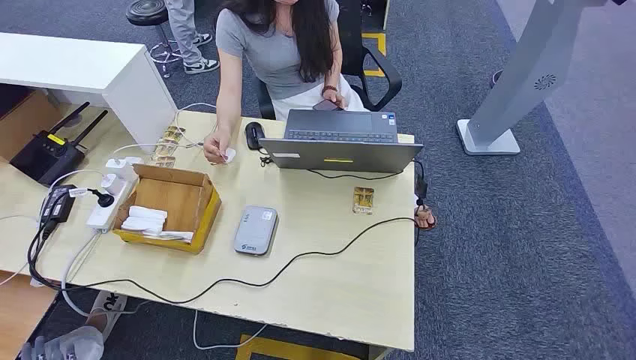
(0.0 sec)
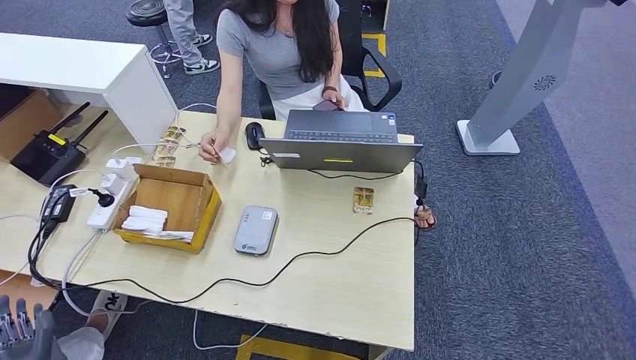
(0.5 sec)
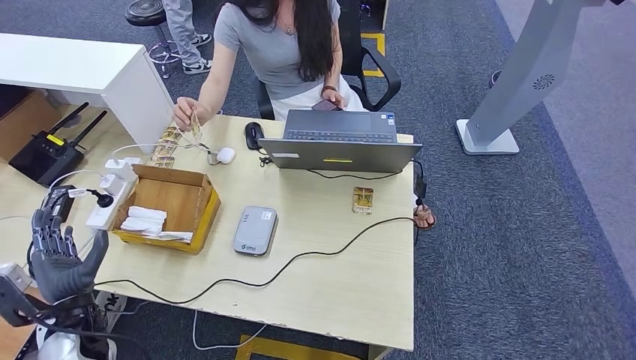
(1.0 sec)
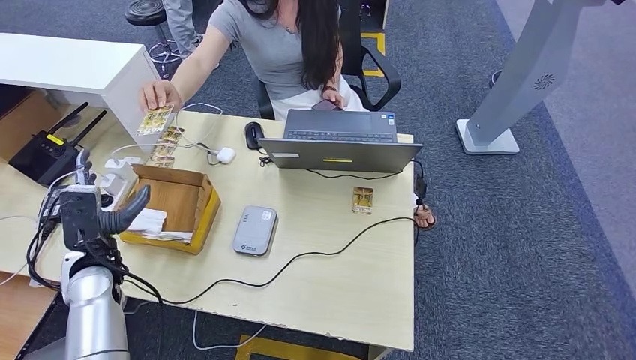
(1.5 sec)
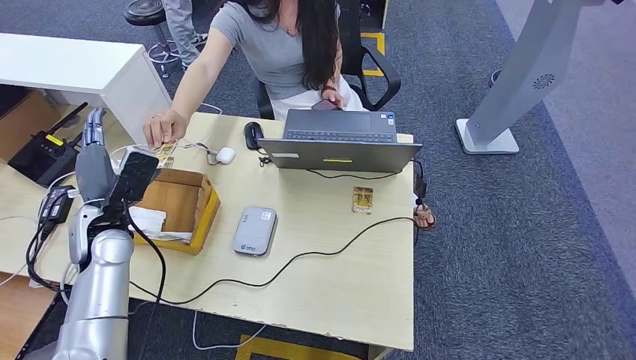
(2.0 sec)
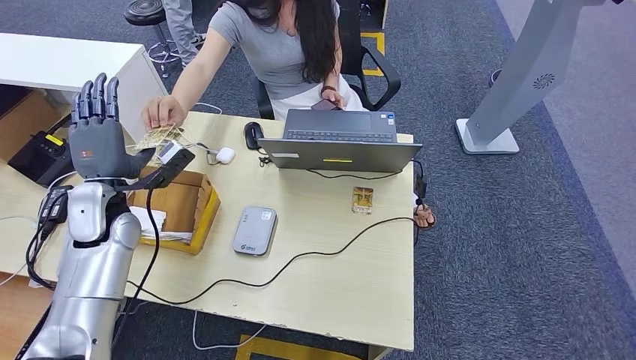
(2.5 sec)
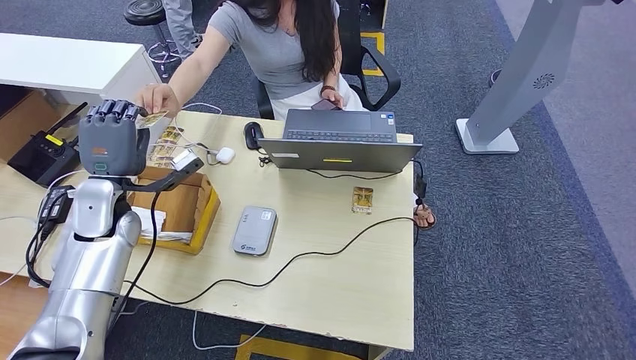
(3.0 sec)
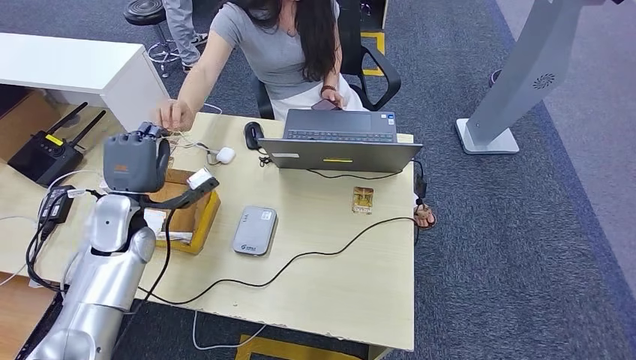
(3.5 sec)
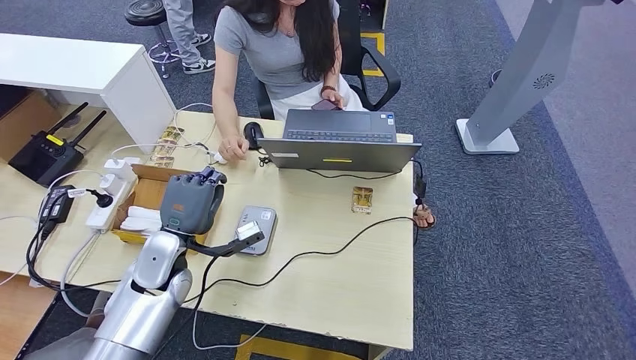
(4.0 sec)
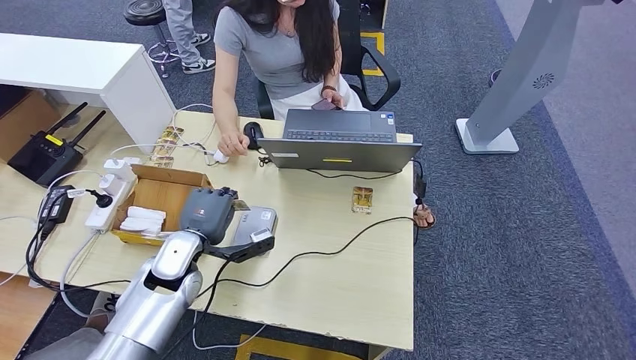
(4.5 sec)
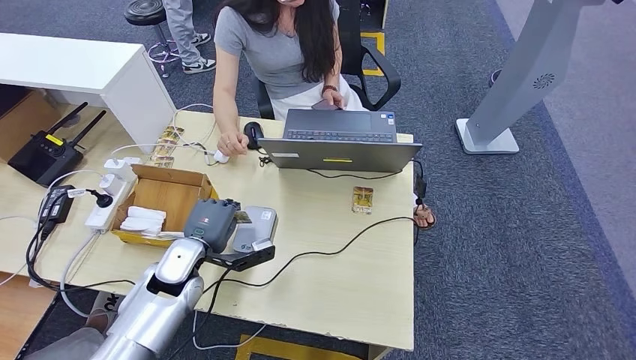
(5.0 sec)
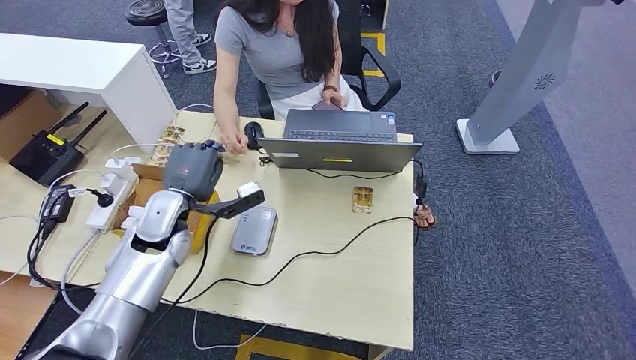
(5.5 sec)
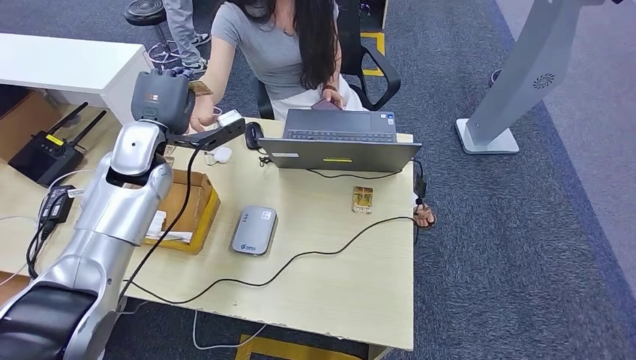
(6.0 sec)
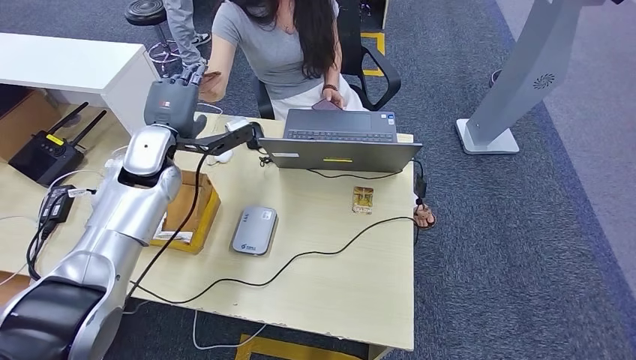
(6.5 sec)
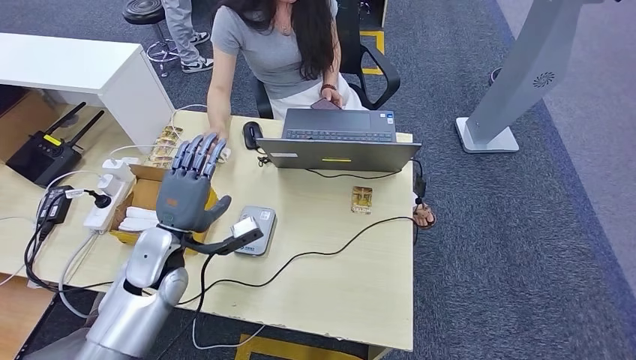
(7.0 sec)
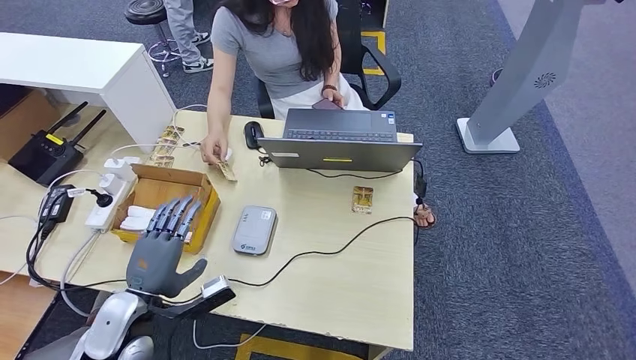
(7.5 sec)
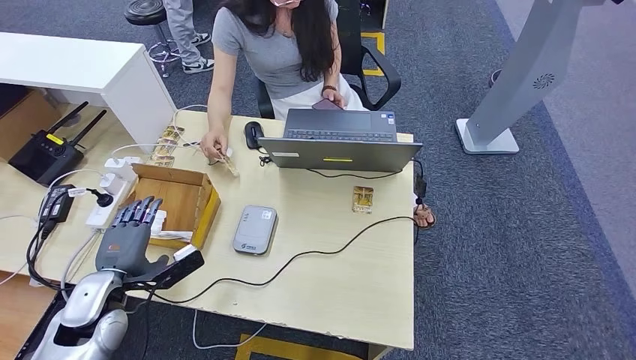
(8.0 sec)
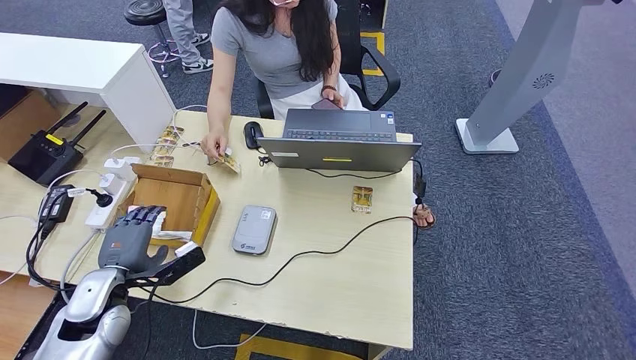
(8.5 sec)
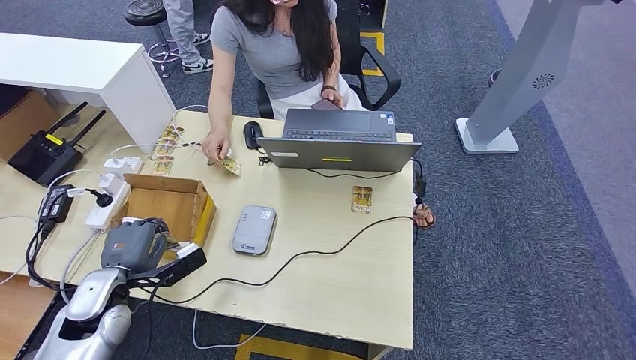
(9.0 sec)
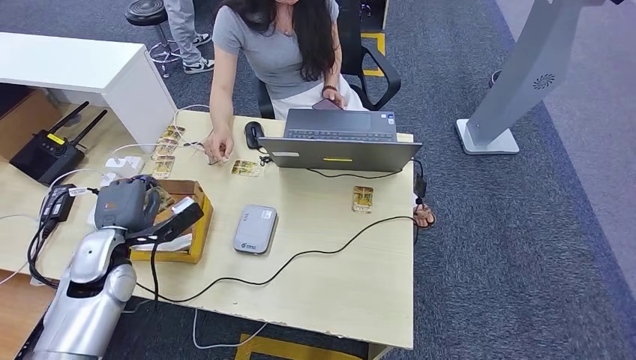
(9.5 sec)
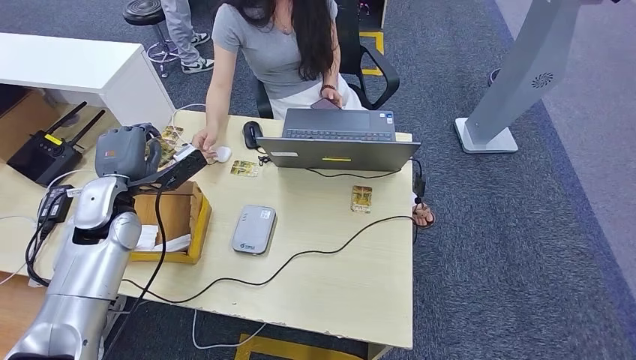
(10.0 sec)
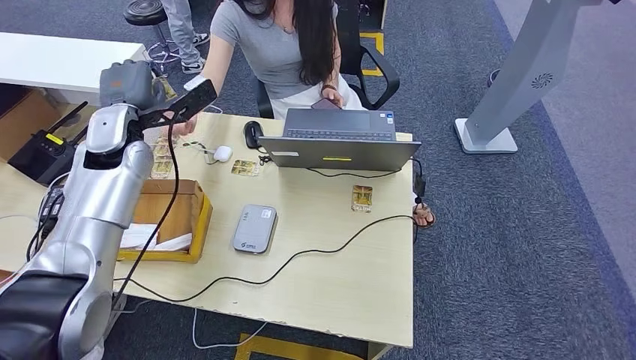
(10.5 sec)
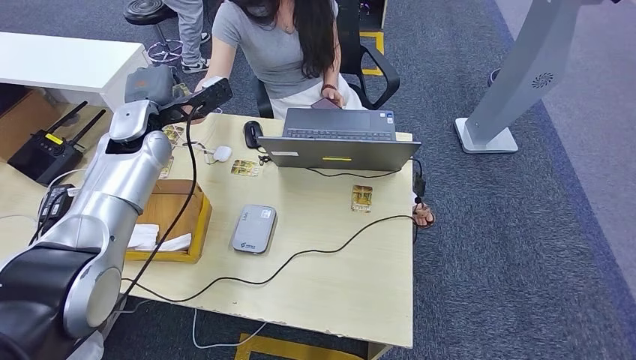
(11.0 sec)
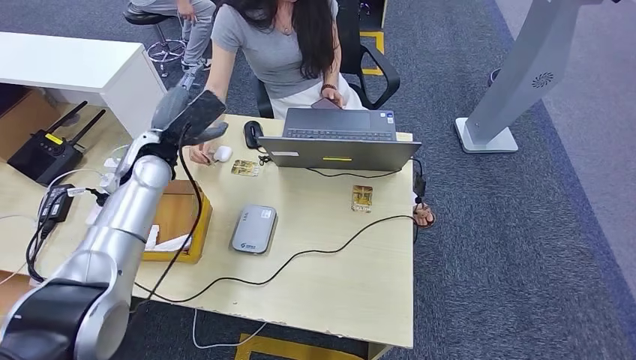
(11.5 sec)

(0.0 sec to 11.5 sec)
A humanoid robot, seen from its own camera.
Step, 0.0 sec - 3.5 sec: Take the ID card from the person's hand.
Step, 4.0 sec - 4.5 sec: Place the ID card on the card reader.
Step, 6.0 sec - 7.0 sec: Hand the ID card to the person.
Step, 8.5 sec - 9.0 sec: Pick up the room key from the key card box.
Step, 9.5 sec - 11.5 sec: Hand the room key to the person.
2.0 sec - 4.0 sec: The left hand heads to the right and downward, covering some 10 cm.
4.0 sec - 6.0 sec: The left hand travels upward and forward by some 20 cm.
6.0 sec - 7.5 sec: The left hand heads backward and downward, covering some 30 cm.
7.5 sec - 9.5 sec: The left hand moves forward and to the left, roughly 10 cm.
9.5 sec - 11.5 sec: The left hand heads forward and upward, covering approximately 20 cm.
